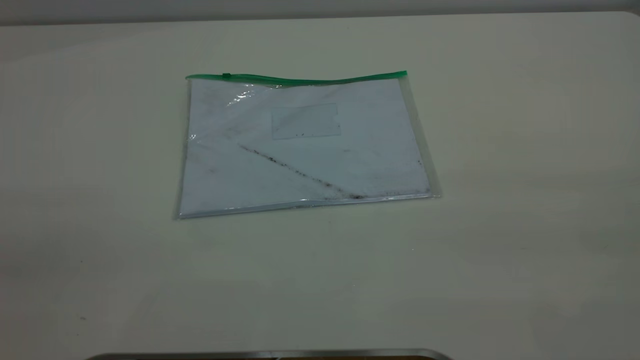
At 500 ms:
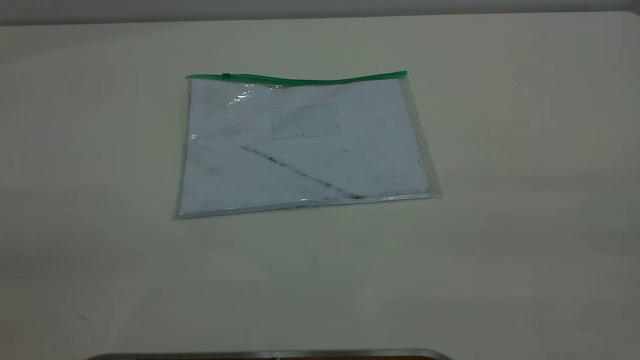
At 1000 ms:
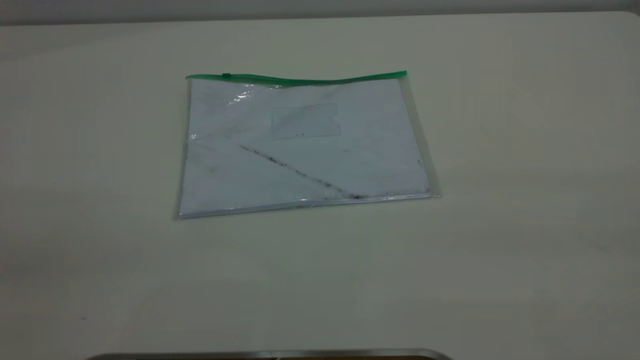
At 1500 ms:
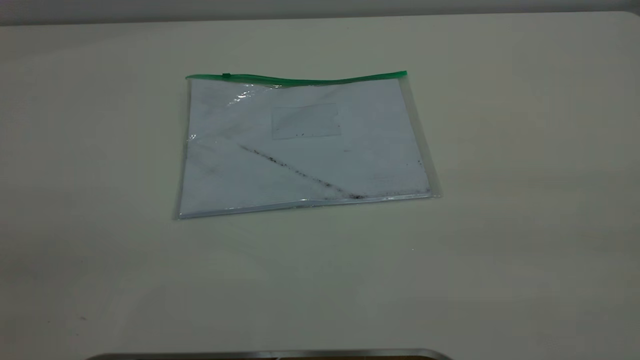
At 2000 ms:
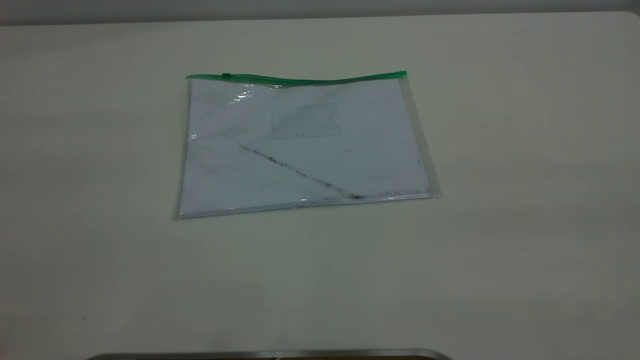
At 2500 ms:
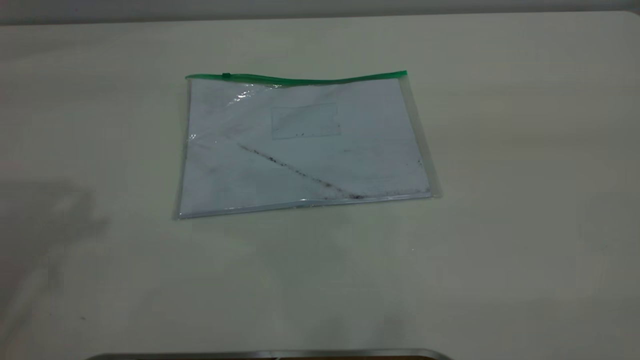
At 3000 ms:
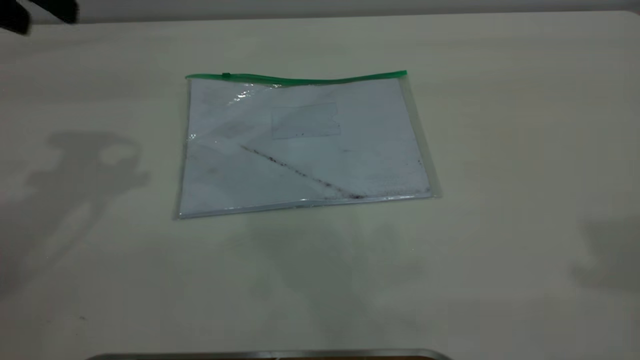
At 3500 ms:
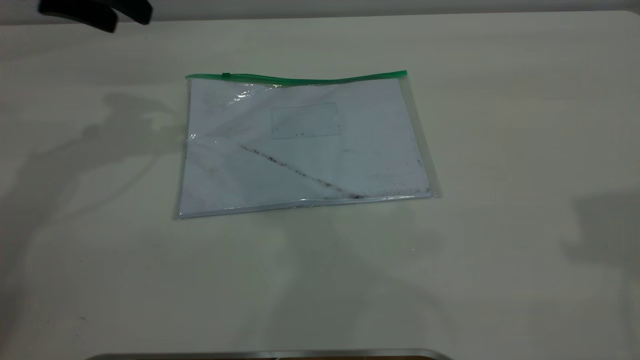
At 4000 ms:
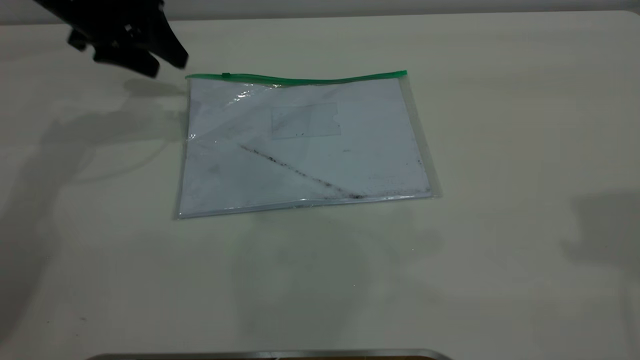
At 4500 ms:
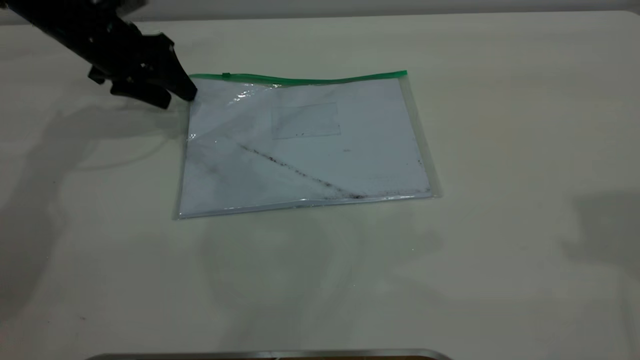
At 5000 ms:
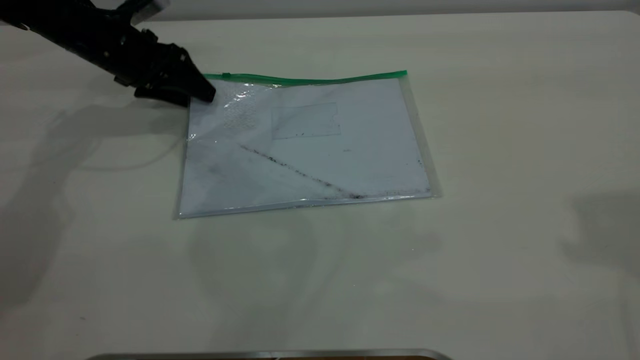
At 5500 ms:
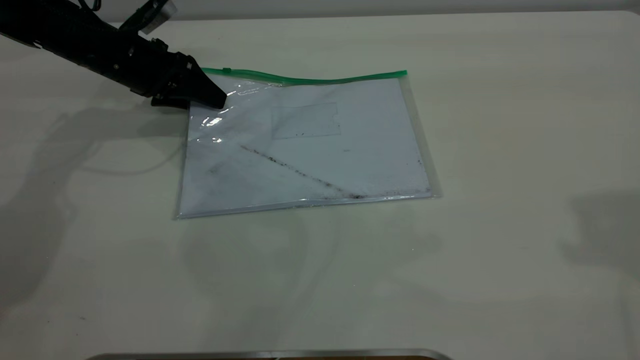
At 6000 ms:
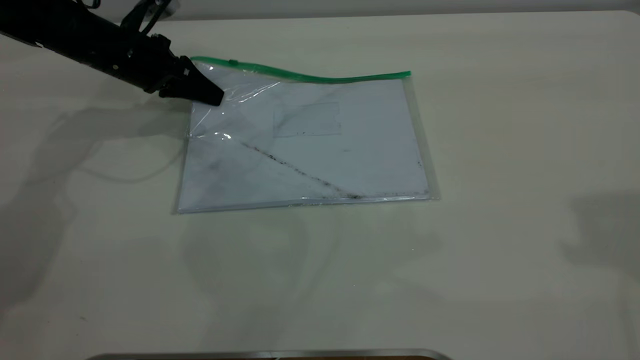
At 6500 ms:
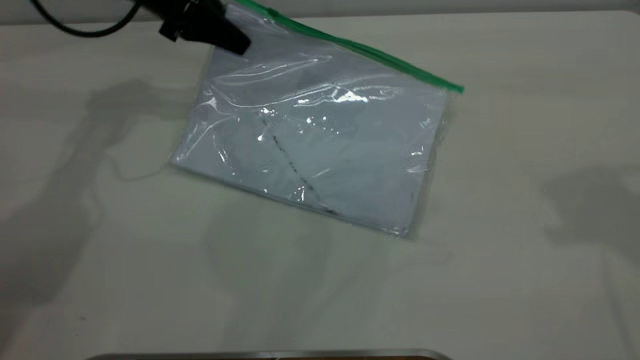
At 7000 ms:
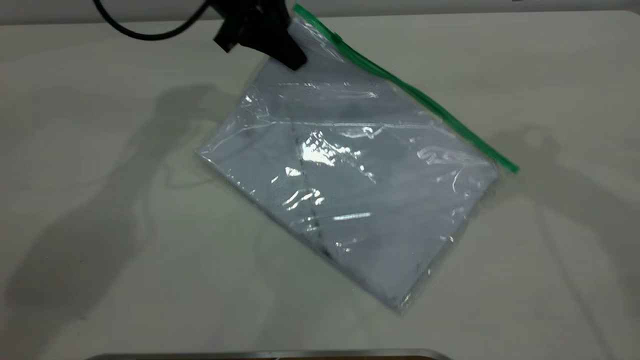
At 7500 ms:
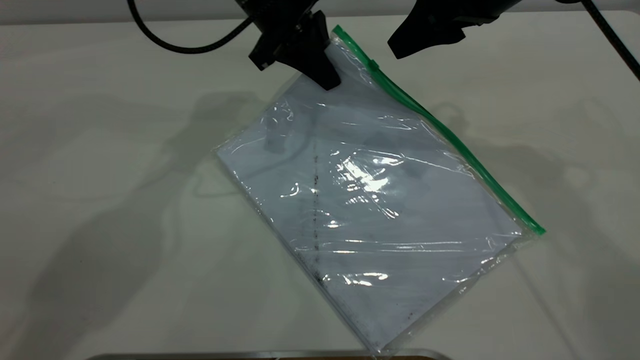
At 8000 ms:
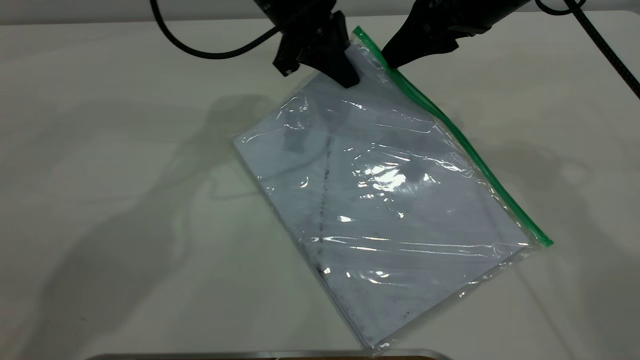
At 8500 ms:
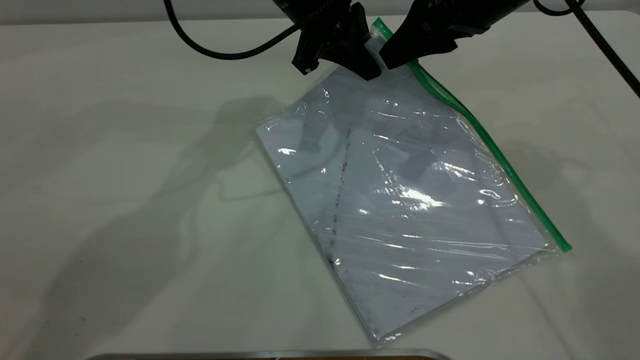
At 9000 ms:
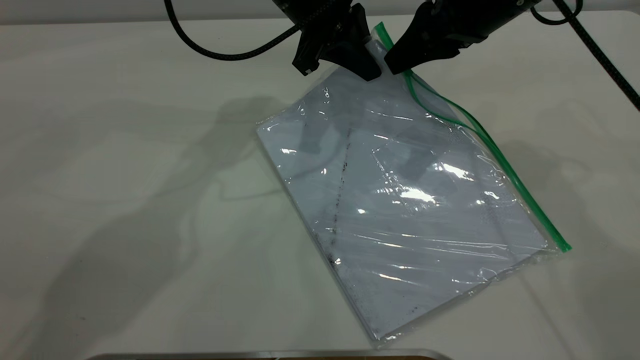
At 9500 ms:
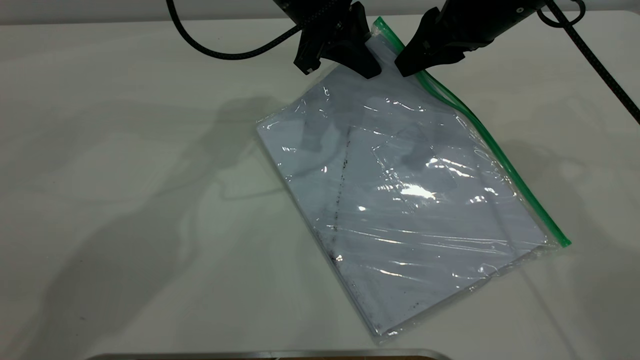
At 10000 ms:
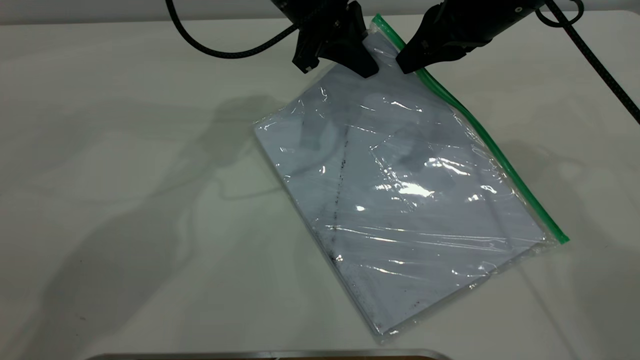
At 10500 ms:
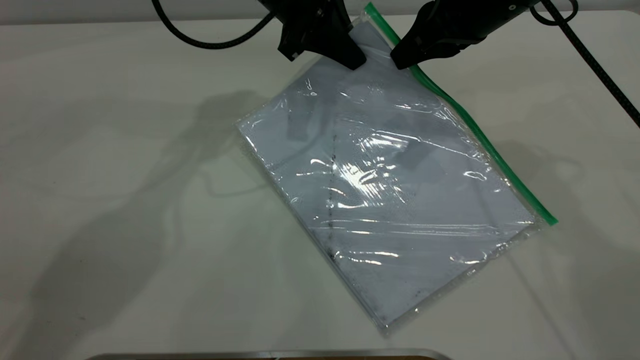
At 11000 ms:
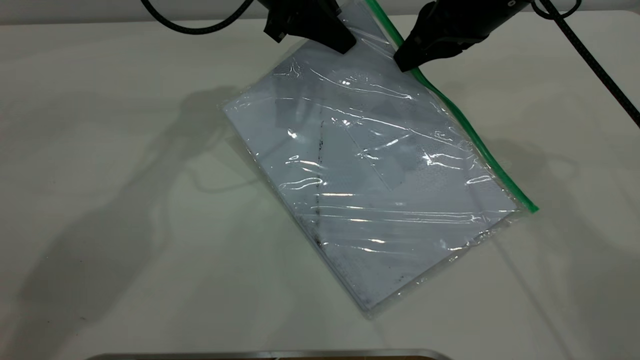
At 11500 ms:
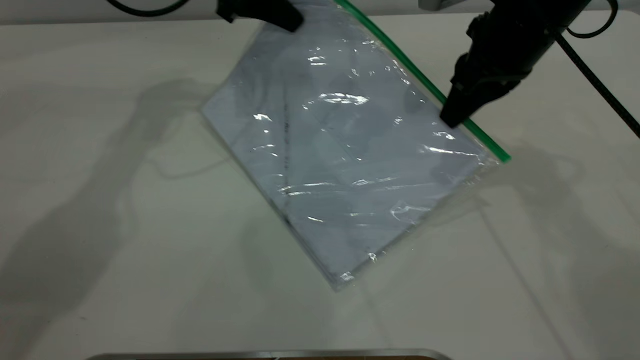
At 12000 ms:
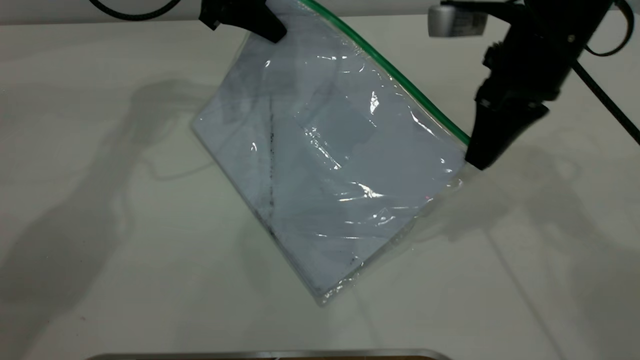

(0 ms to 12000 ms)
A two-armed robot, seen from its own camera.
Step, 0 ms - 6000 ms: Pick up the transparent plastic bag with the left gripper.
2000 ms - 4000 ms: The left gripper travels forward and downward by some 40 cm.
4000 ms - 6000 ms: The left gripper is displaced downward by some 10 cm, and closes.
6000 ms - 8000 ms: The right gripper travels downward, forward and to the left by some 30 cm. Meanwhile the left gripper heads to the right, covering some 20 cm.
8000 ms - 10000 ms: The right gripper closes its fingers.
10000 ms - 12000 ms: The right gripper ends up about 5 cm from where it was. The left gripper moves to the left, about 10 cm.

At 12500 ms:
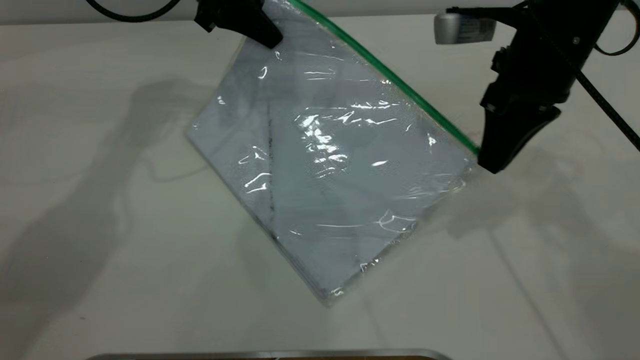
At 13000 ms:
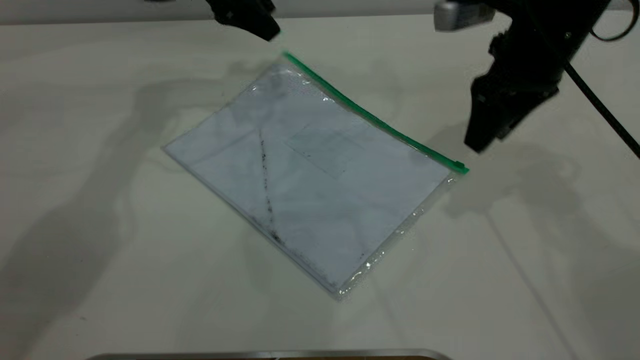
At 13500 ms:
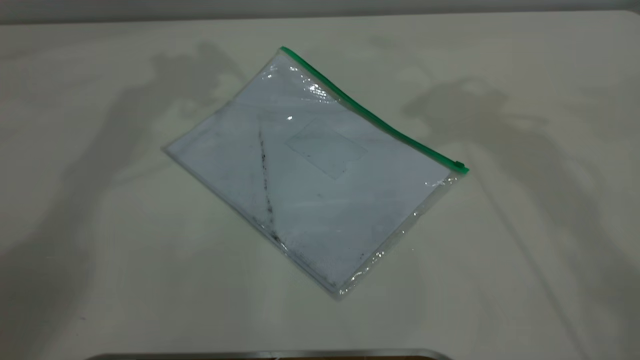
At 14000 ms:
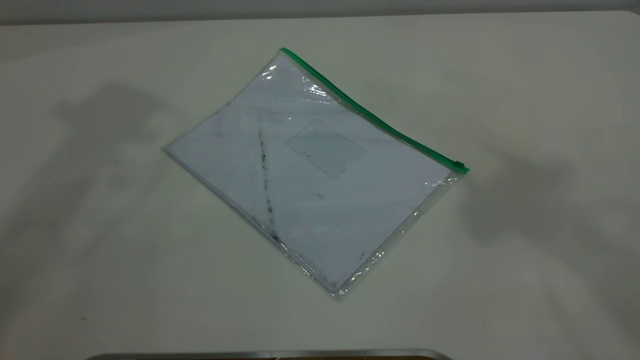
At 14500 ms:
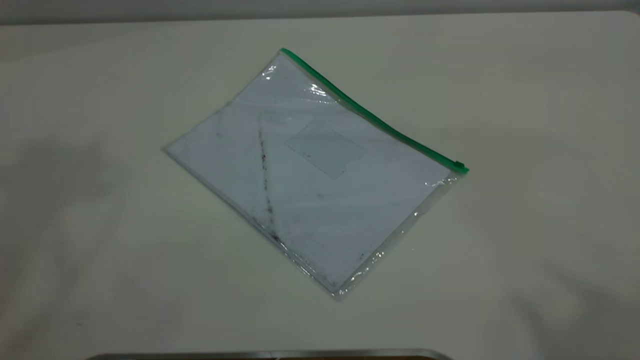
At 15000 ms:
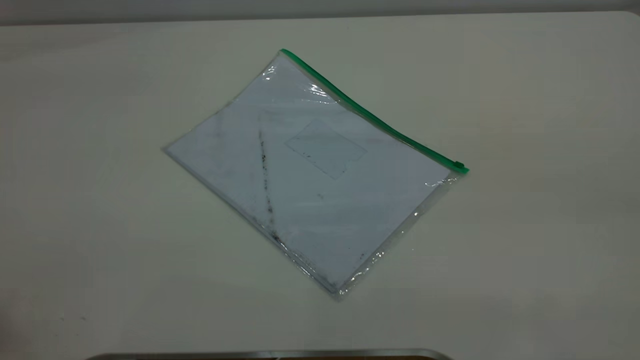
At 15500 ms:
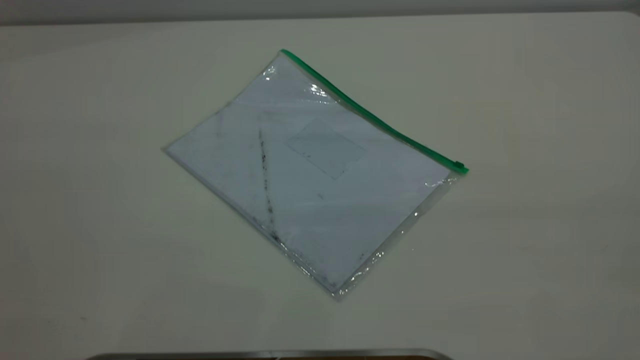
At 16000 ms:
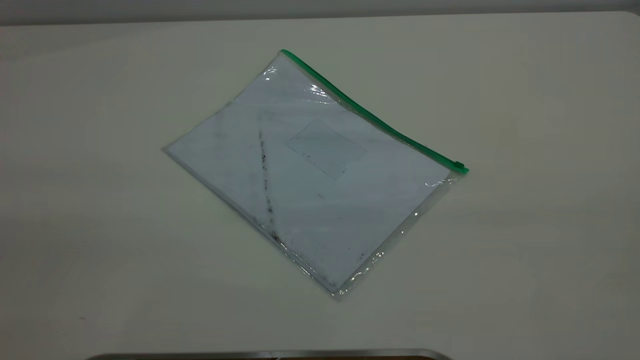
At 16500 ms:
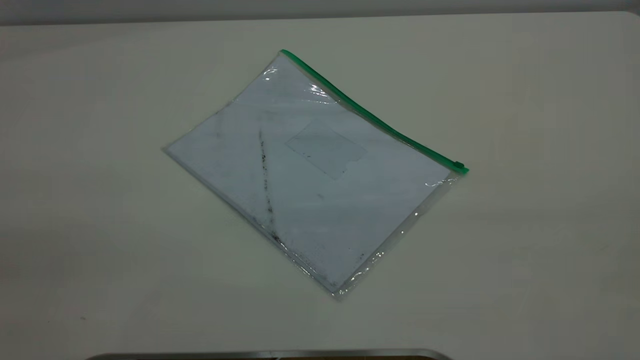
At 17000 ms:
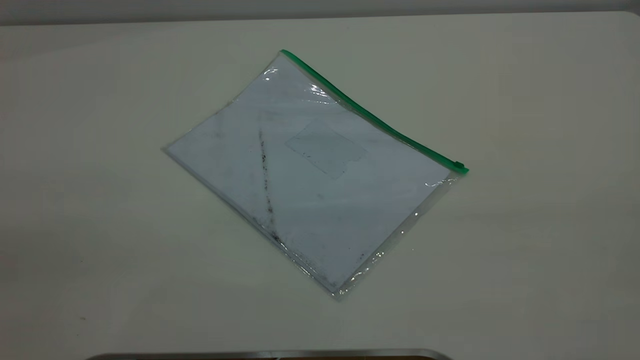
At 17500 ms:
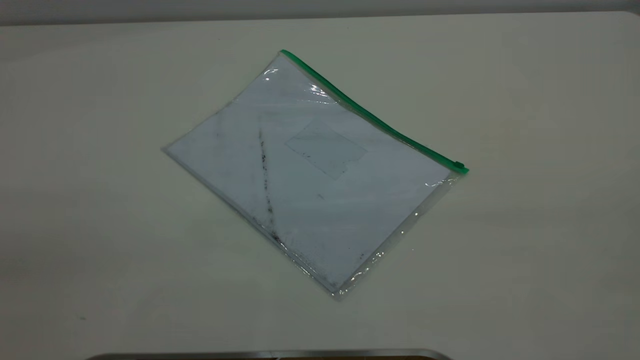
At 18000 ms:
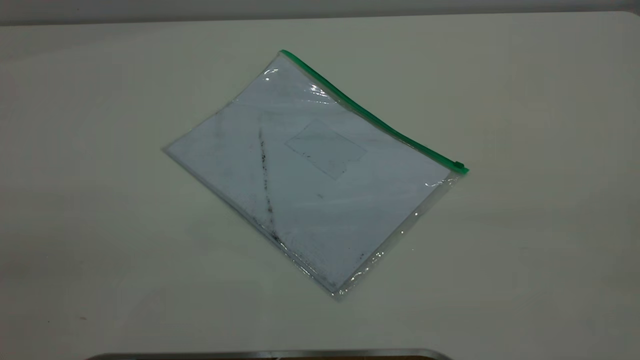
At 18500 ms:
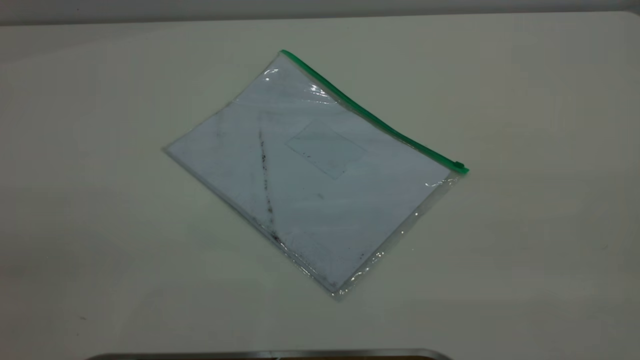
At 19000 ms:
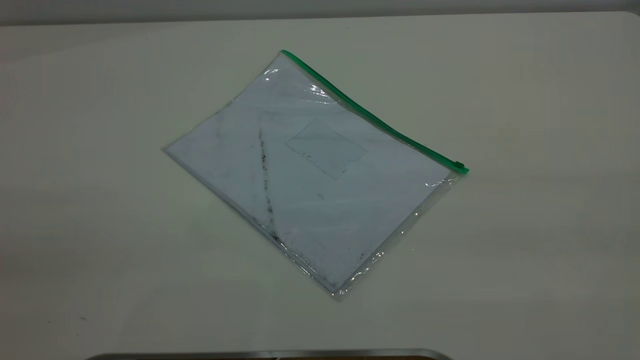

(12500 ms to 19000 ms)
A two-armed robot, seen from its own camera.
12500 ms - 14500 ms: The two grippers go approximately 50 cm upward and backward. The left gripper opens its fingers, while the right gripper opens up.

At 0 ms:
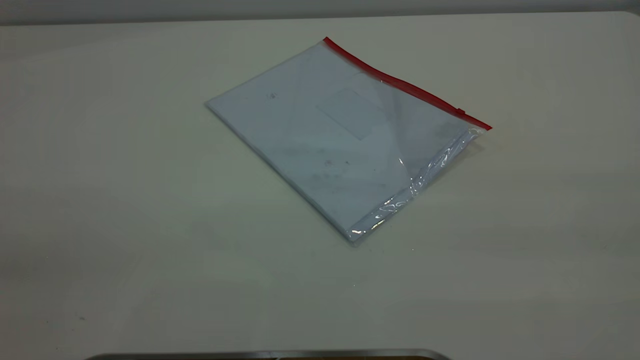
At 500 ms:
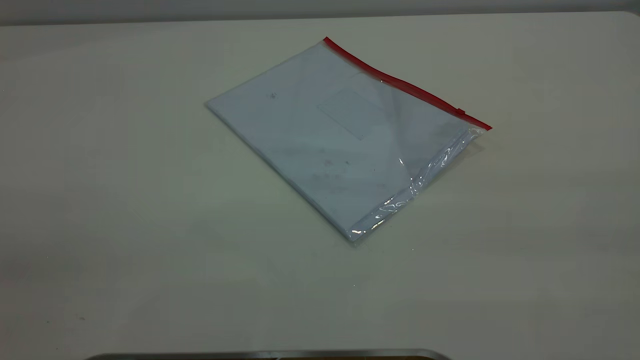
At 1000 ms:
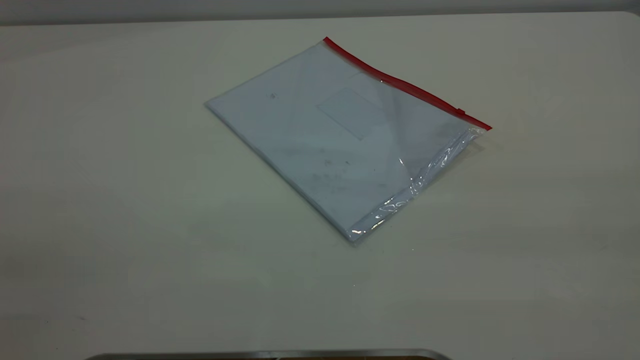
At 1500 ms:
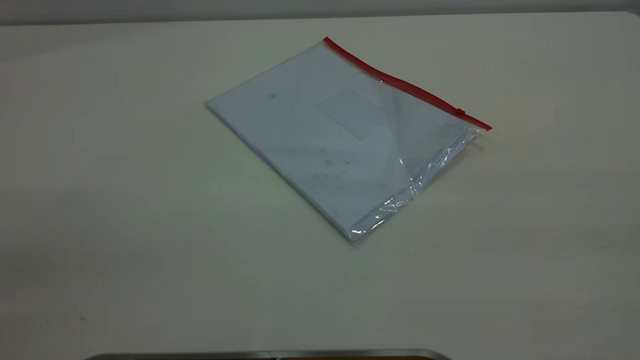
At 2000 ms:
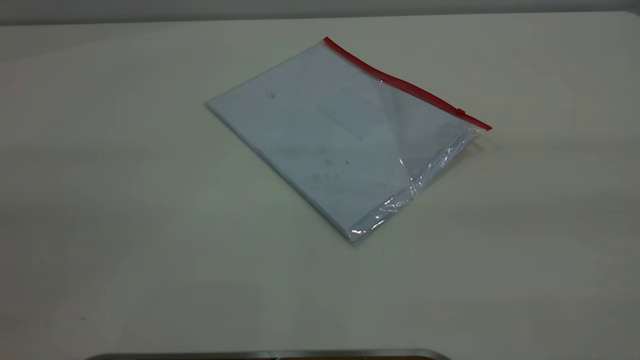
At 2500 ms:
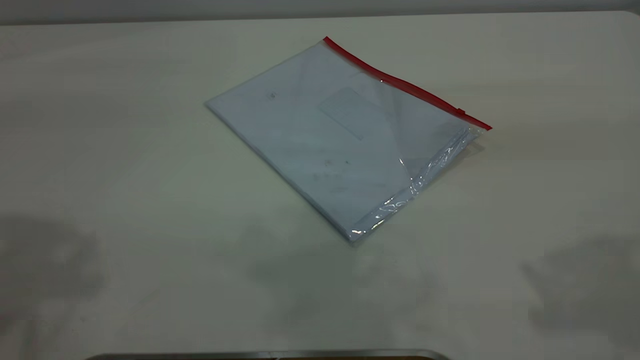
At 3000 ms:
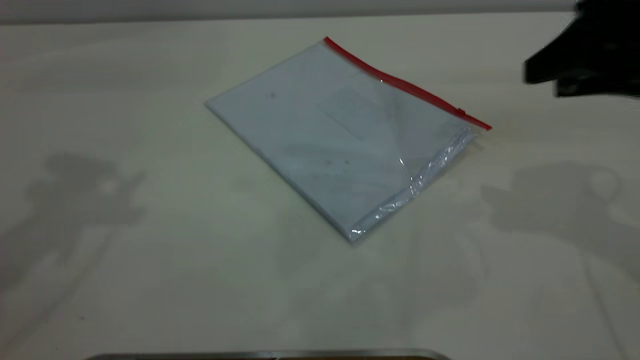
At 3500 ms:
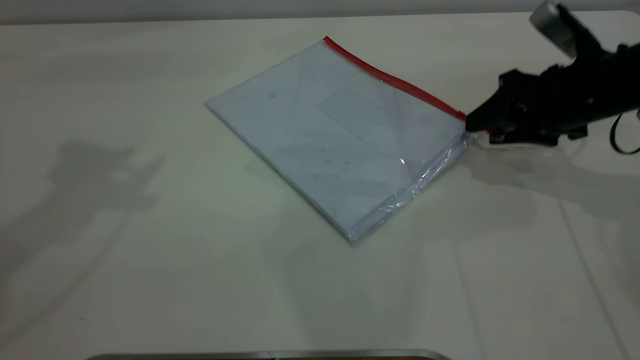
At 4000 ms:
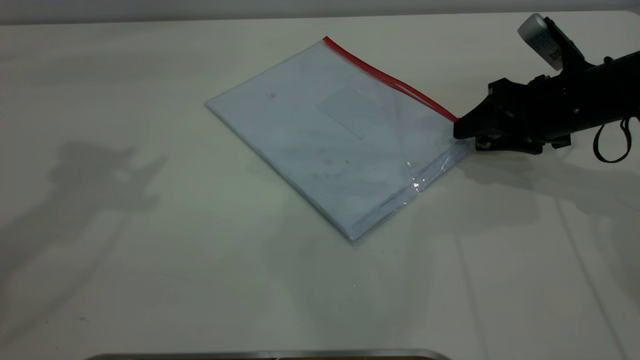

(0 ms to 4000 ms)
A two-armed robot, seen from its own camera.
2000 ms - 4000 ms: The right gripper heads forward and downward, covering some 40 cm.
